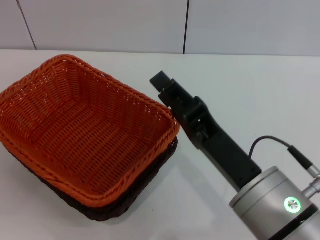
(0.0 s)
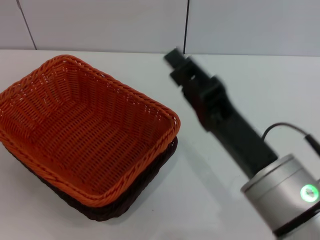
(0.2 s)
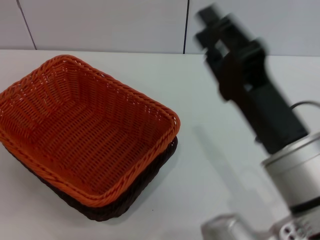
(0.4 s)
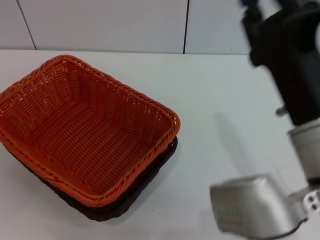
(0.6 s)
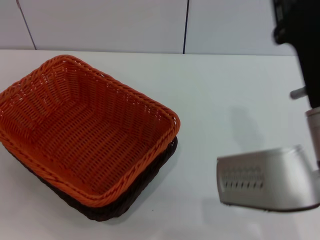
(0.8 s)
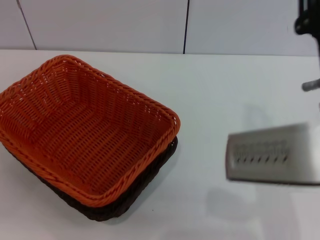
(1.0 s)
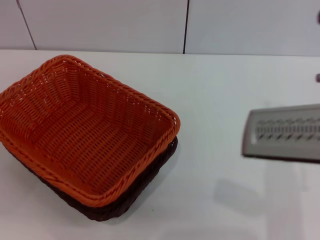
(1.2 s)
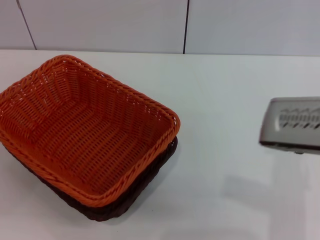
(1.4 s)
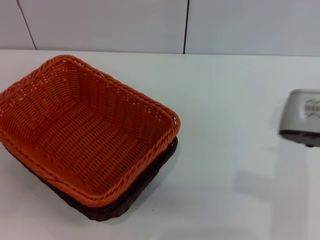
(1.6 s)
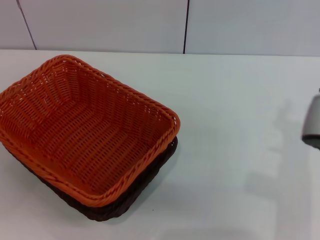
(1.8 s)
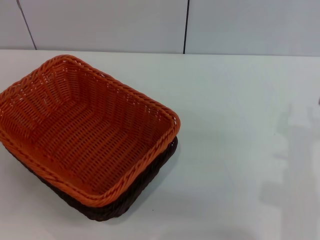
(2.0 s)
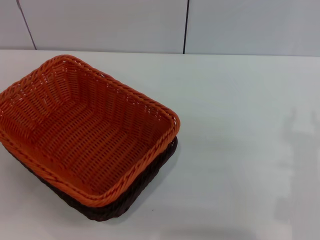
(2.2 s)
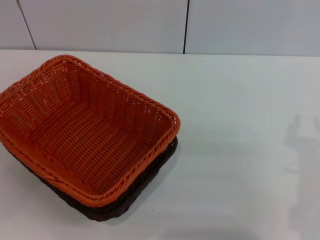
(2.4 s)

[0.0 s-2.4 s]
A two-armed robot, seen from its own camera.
0.0 to 1.2 s: The right gripper shifts some 5 cm forward.
1.2 to 2.4 s: The right gripper moves downward and to the right, about 10 cm.
